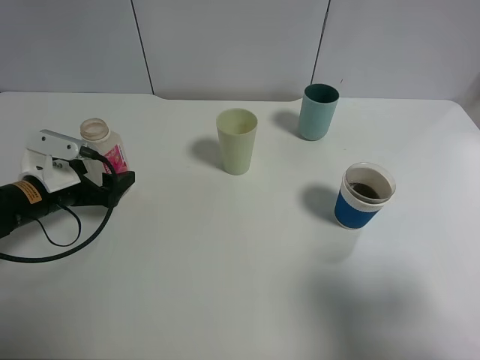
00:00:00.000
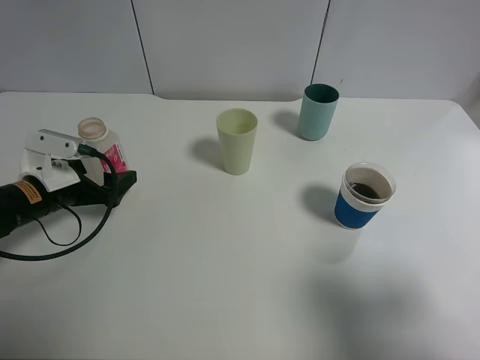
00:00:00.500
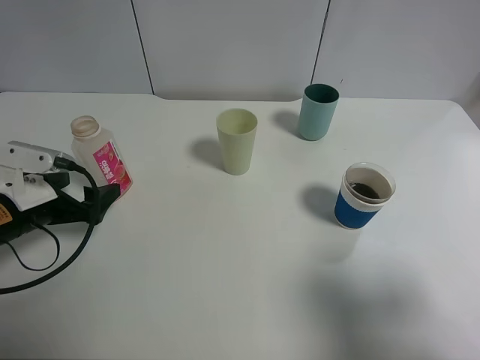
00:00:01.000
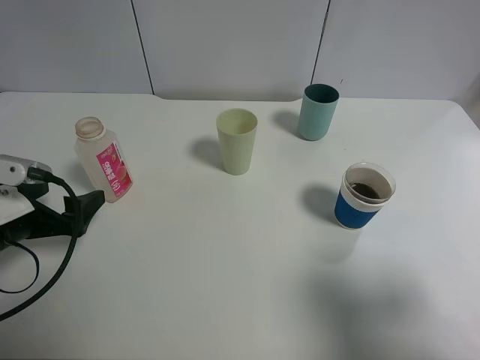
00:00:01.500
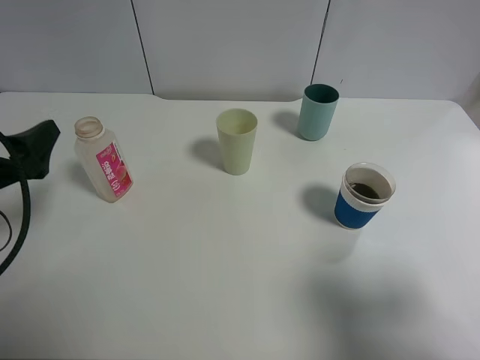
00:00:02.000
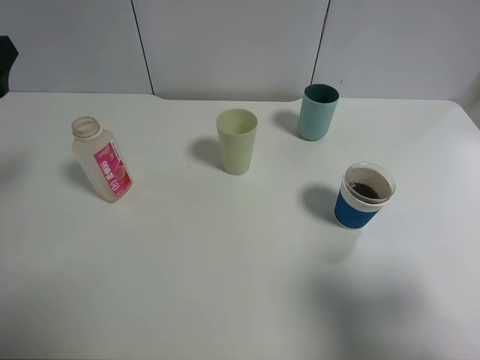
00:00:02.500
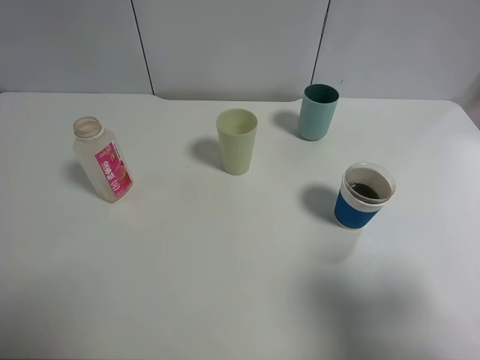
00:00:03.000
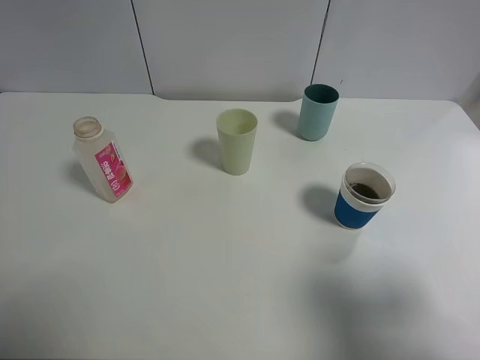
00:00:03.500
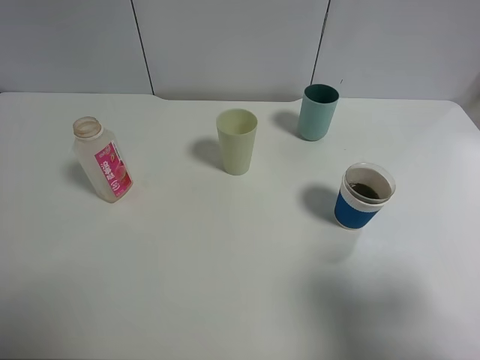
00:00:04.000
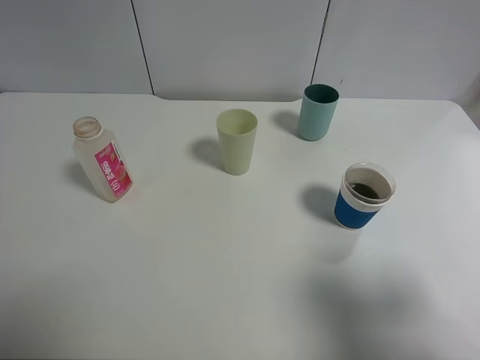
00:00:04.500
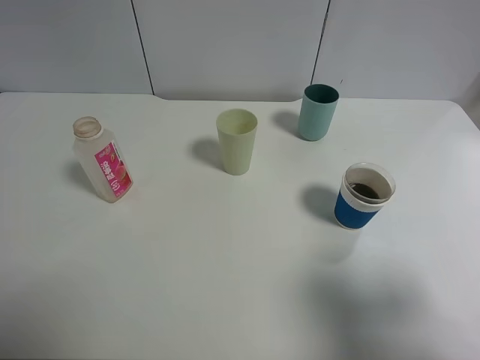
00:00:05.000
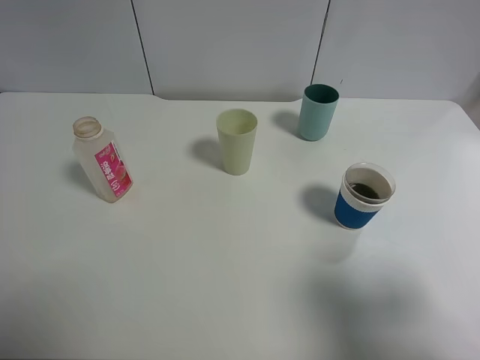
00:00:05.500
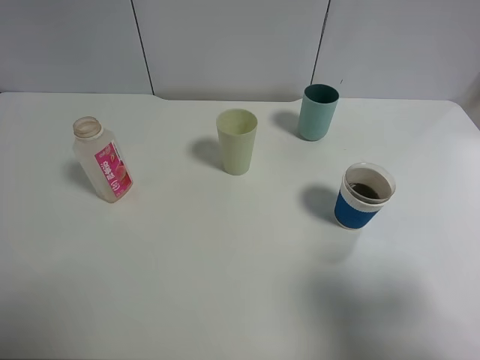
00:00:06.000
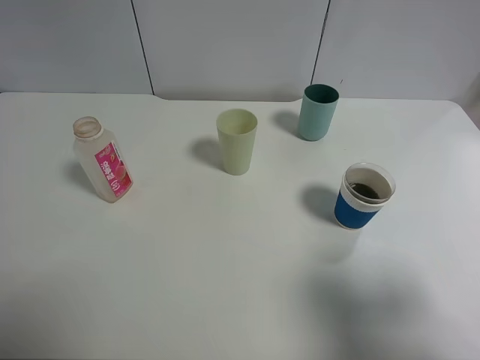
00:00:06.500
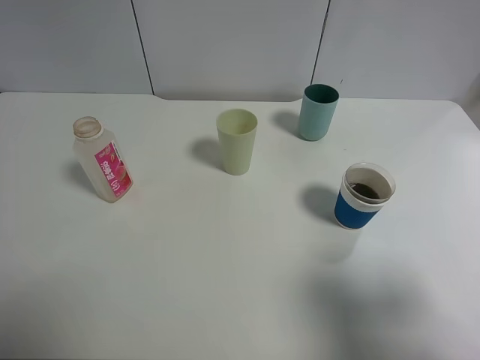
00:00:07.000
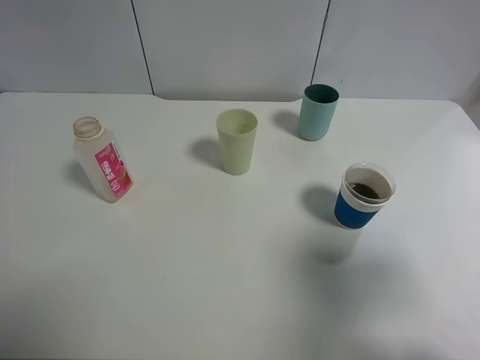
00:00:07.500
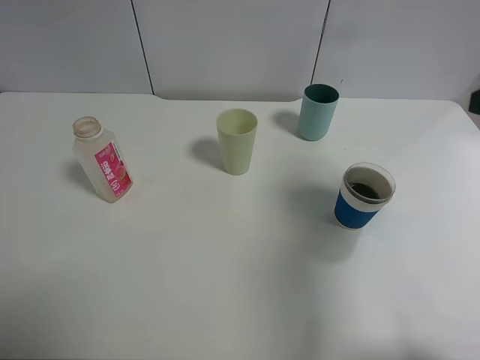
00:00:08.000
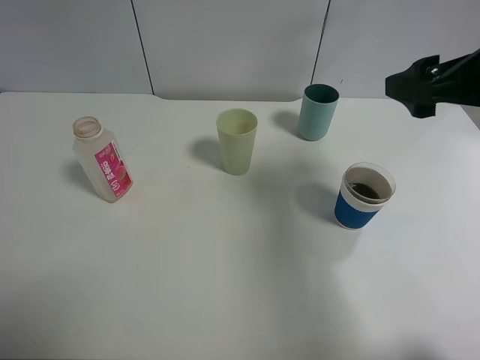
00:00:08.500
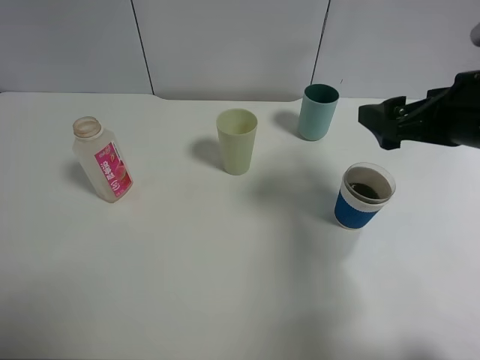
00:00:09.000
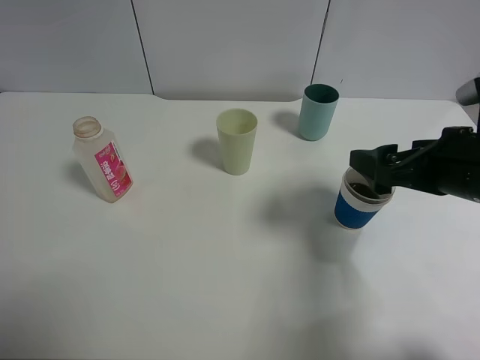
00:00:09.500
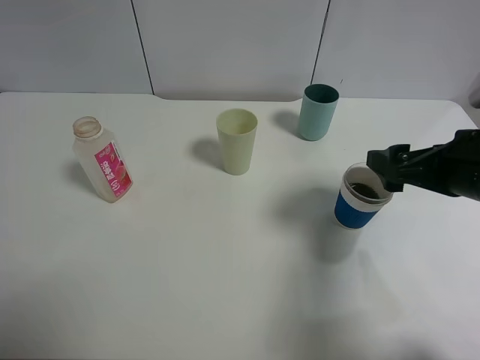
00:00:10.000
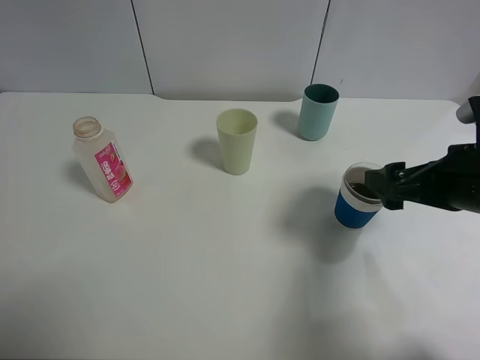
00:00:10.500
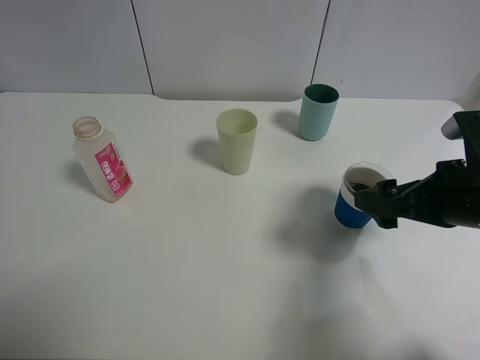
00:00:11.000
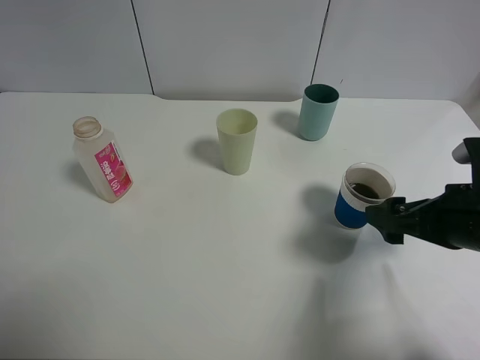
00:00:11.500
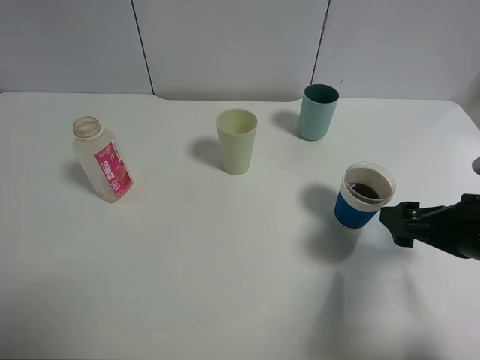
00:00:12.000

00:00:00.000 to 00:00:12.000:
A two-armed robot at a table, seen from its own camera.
Task of the whole recording: use a clamp to hold the bottle of the drink, pour the beverage into a random cup, then clamp the cup containing the drink and pour the drink into another random cup.
00:00:00.000 to 00:00:02.000: The left gripper heads upward and backward, covering about 15 cm.
00:00:02.000 to 00:00:04.000: The left gripper goes approximately 20 cm backward and upward.
00:00:06.000 to 00:00:08.000: The right gripper goes approximately 15 cm forward.
00:00:08.000 to 00:00:10.000: The right gripper travels downward by some 10 cm.
00:00:10.000 to 00:00:12.000: The right gripper shifts by roughly 5 cm.

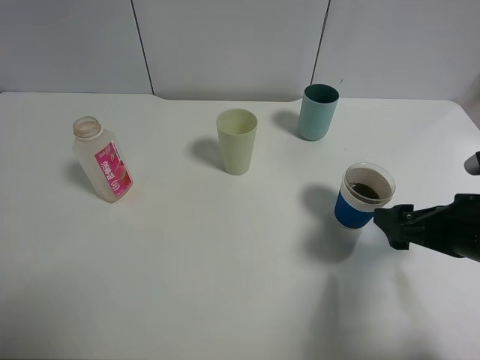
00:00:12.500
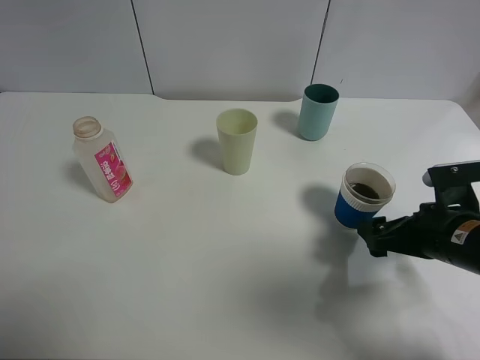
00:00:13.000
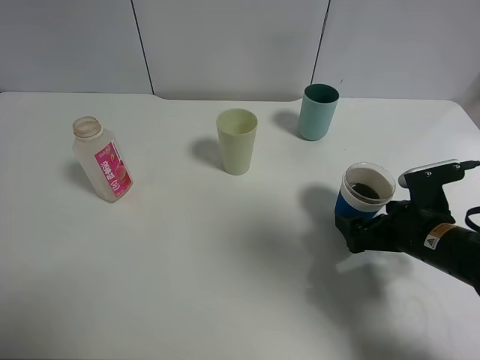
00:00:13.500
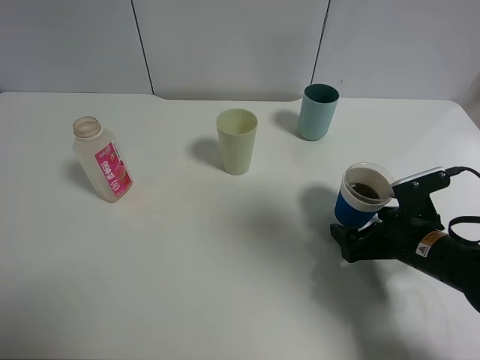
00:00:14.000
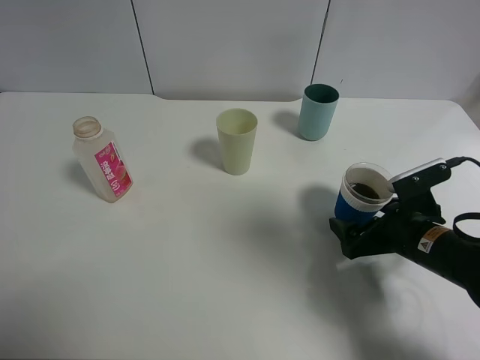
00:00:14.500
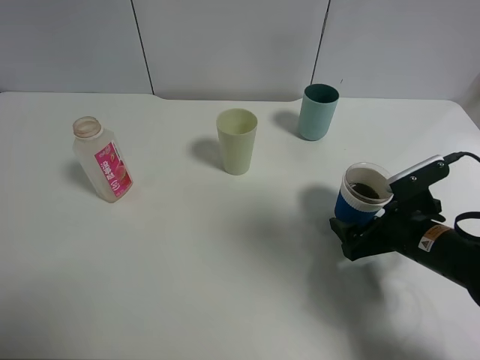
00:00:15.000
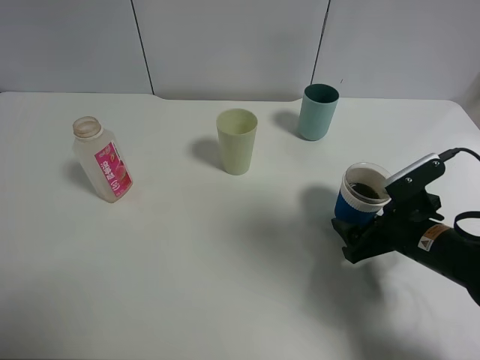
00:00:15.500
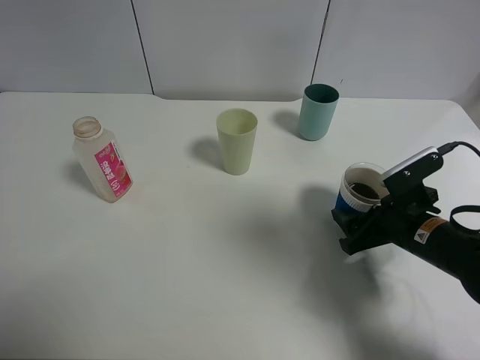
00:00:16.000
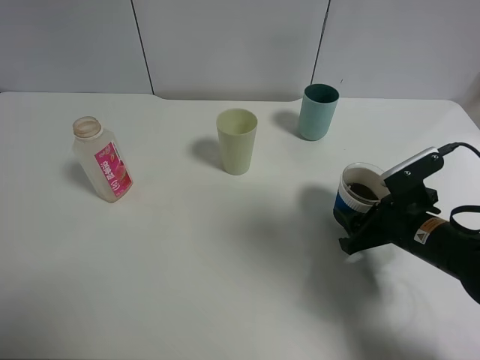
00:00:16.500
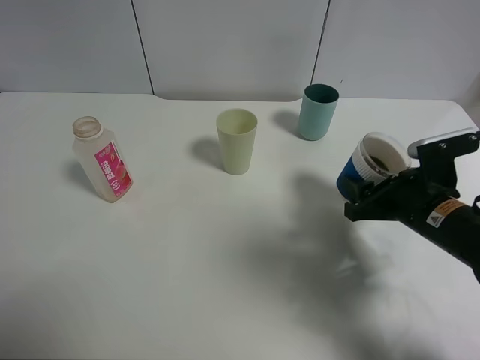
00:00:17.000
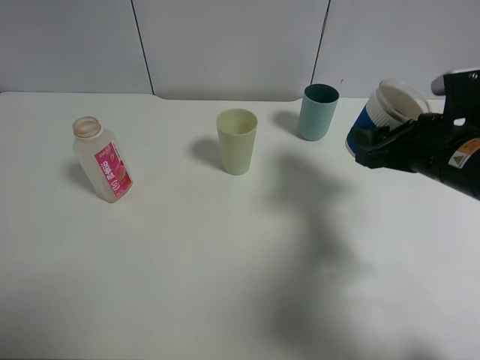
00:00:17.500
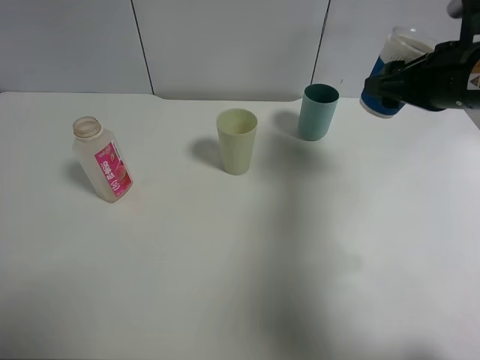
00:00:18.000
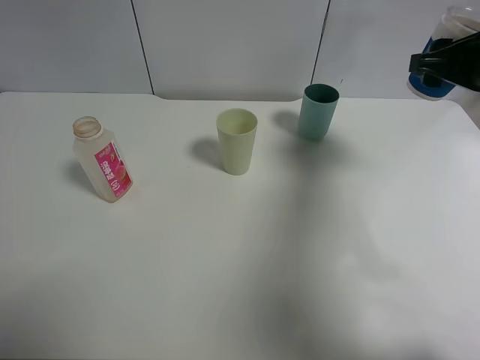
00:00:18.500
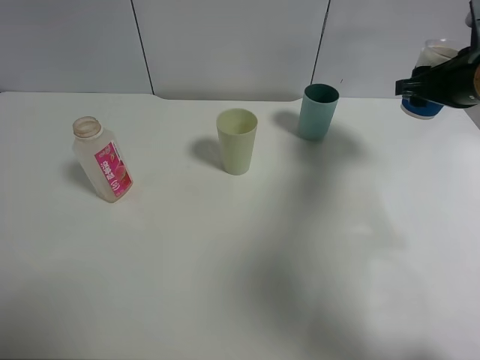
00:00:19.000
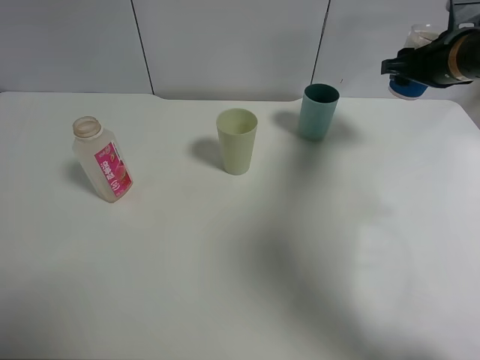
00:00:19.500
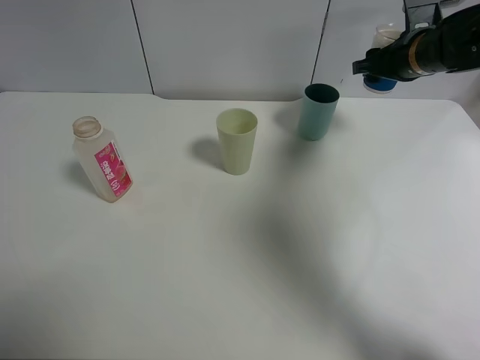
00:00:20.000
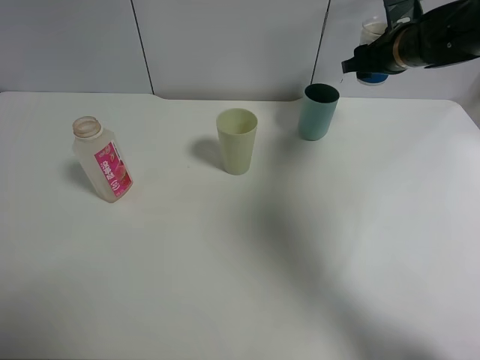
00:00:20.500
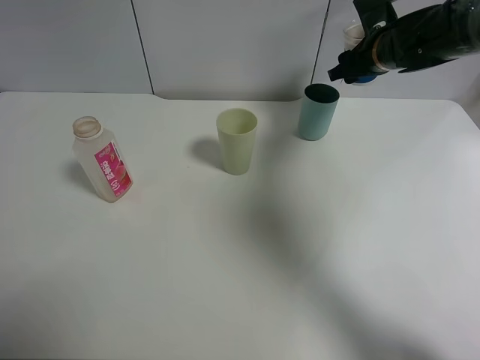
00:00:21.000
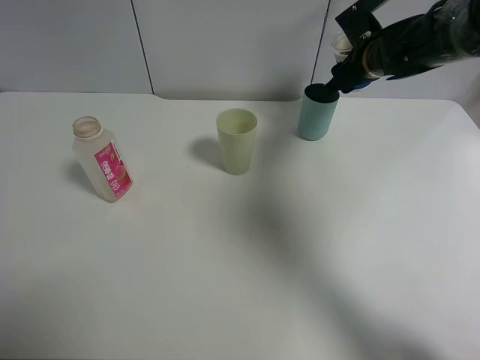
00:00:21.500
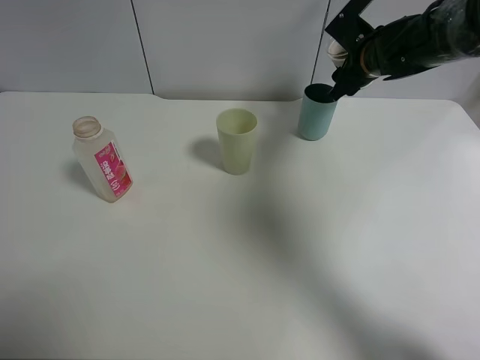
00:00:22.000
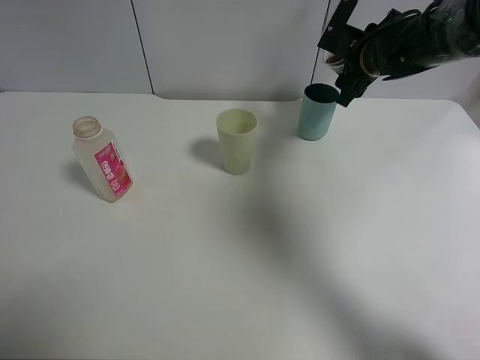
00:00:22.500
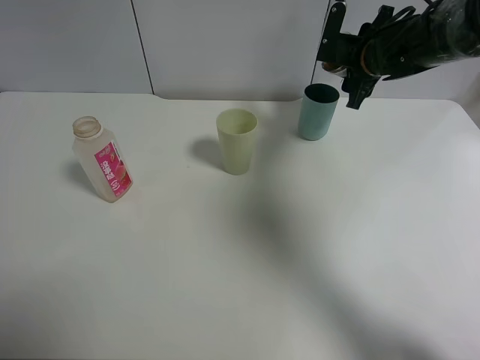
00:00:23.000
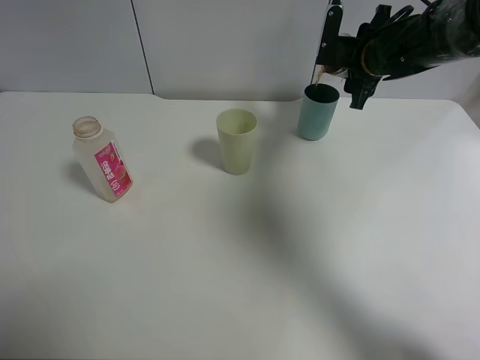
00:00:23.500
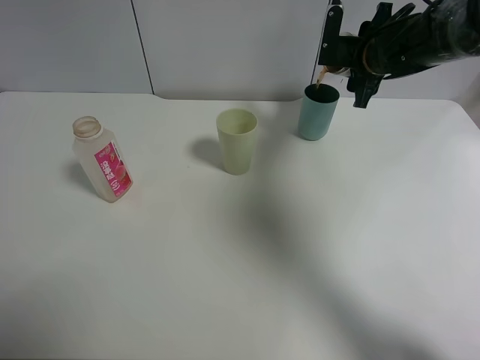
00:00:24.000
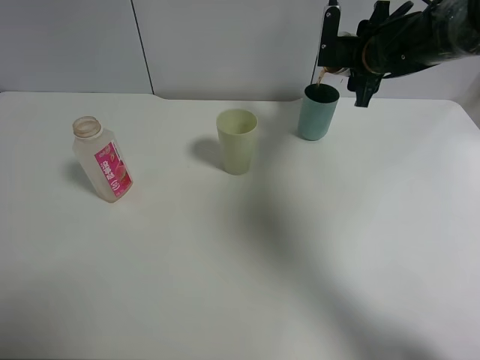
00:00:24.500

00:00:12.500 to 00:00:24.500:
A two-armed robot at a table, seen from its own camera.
Task of the whole recording: use a clamp to hold the bottle of the drink, pour the beverage into a random cup, then clamp the cup containing the drink and pour the drink into another random cup.
Step, 00:00:12.500 to 00:00:16.500: Pick up the paper cup with right gripper.
00:00:12.500 to 00:00:14.500: The right gripper goes about 5 cm downward.
00:00:14.500 to 00:00:16.500: The right gripper closes.
00:00:16.500 to 00:00:18.500: The right gripper shifts approximately 20 cm upward and forward.
00:00:18.500 to 00:00:20.500: The right gripper shifts roughly 15 cm forward.

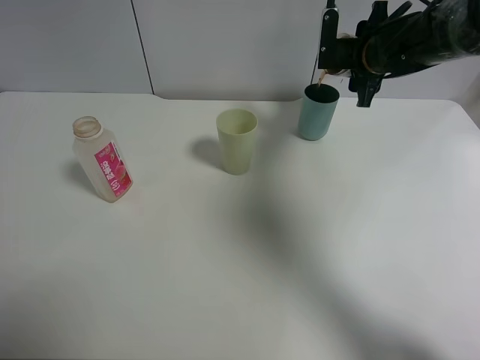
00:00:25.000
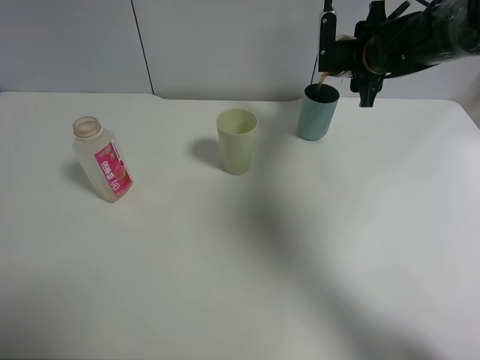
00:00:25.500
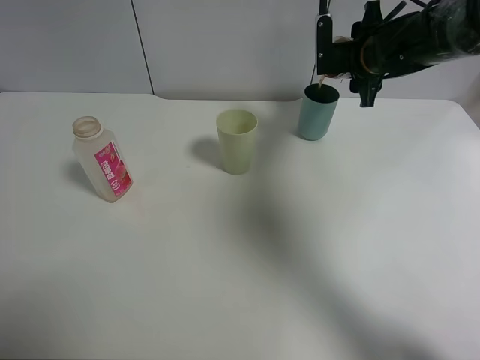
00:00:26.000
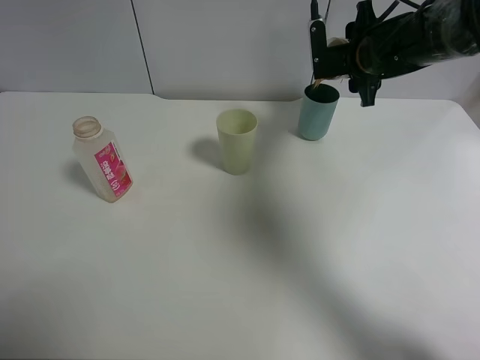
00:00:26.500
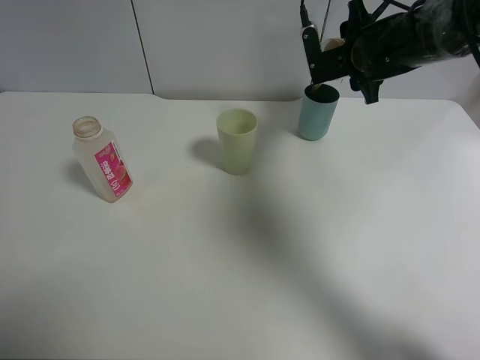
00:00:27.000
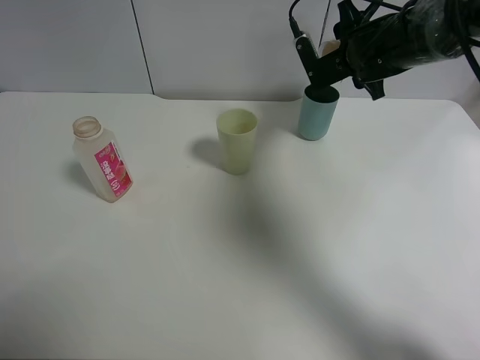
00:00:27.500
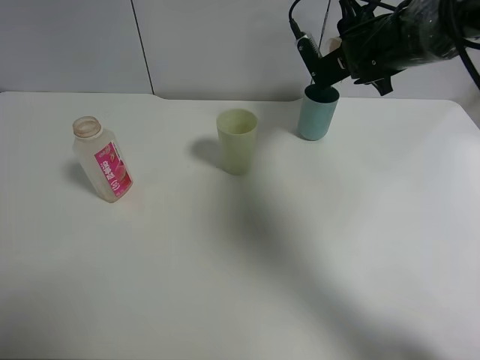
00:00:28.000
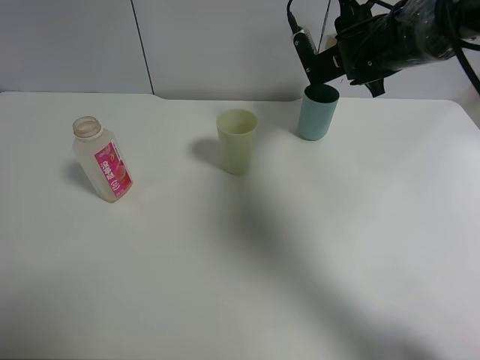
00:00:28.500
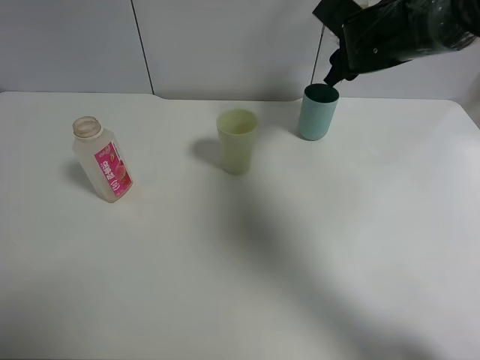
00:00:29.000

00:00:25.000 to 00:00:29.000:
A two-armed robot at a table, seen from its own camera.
Task of the whole recording: use a clamp to hold the bottle of the drink, pour the beverage into a random cup, then clamp the cup containing the drink and pour the drink into another random cup.
Step, 00:00:25.000 to 00:00:28.500: Pour the drink into the blue plastic cup with right gripper.
00:00:25.000 to 00:00:27.000: There are only small adjustments of the grippers.
